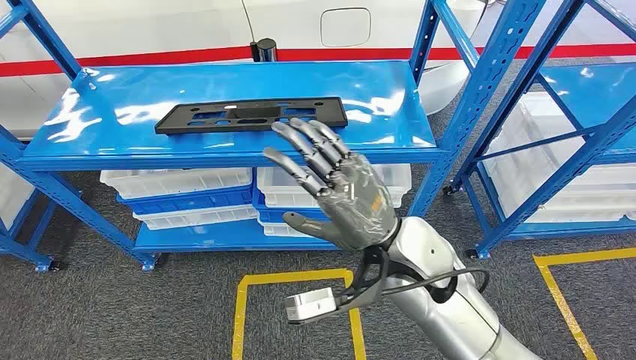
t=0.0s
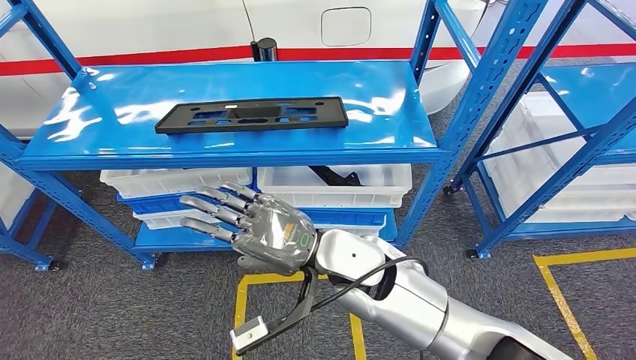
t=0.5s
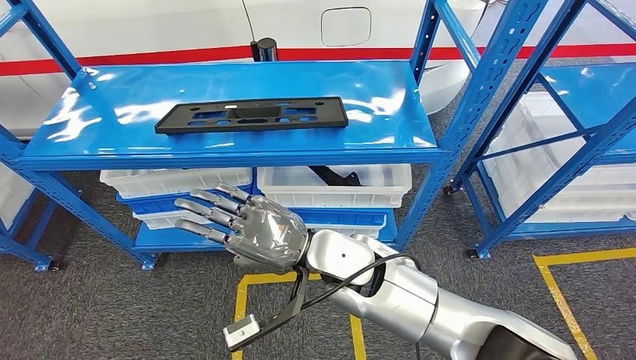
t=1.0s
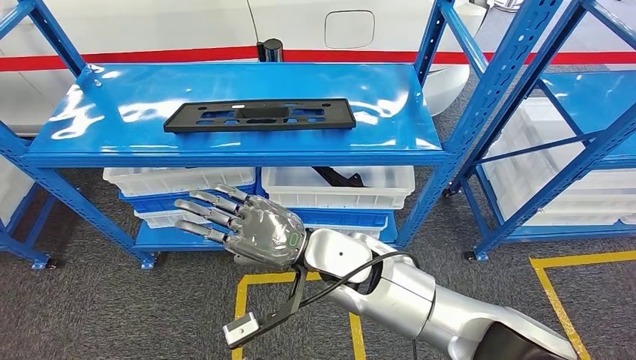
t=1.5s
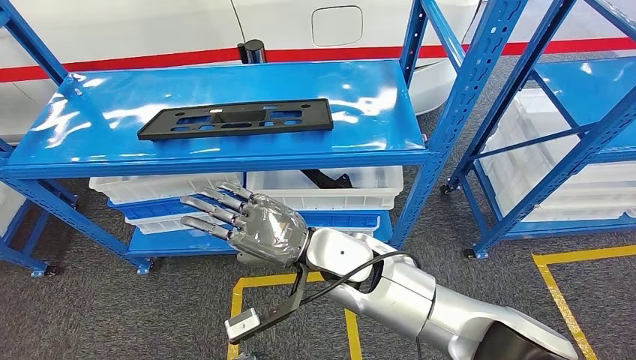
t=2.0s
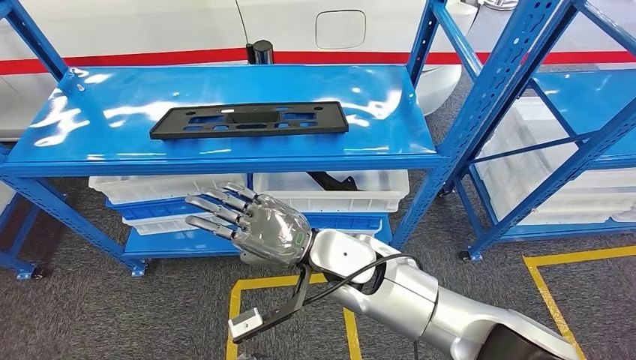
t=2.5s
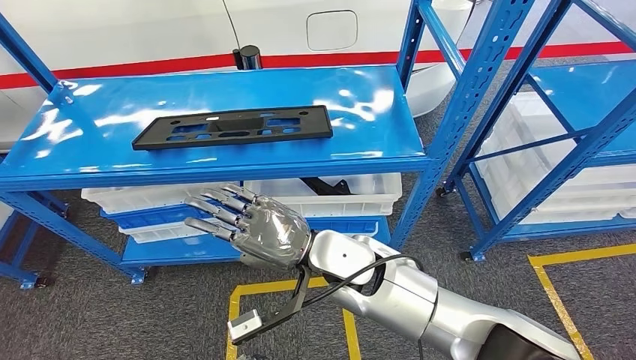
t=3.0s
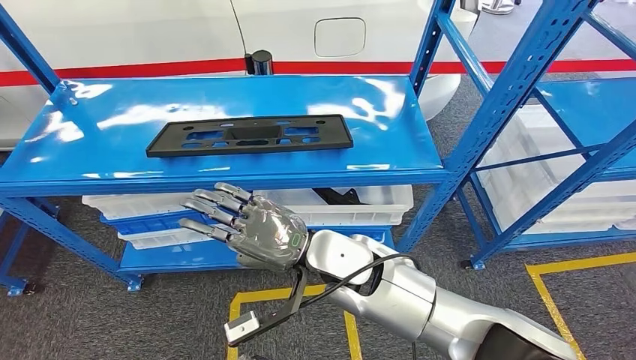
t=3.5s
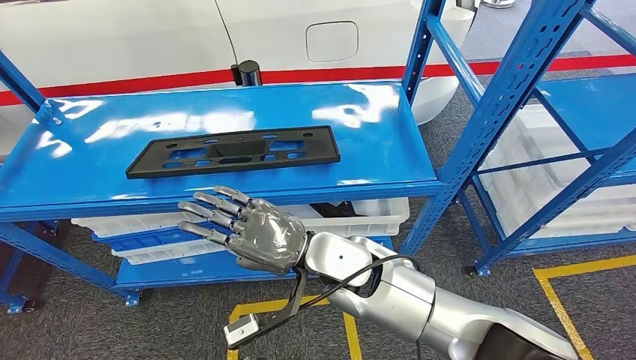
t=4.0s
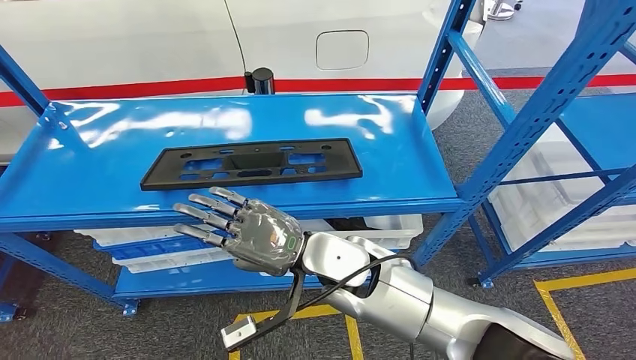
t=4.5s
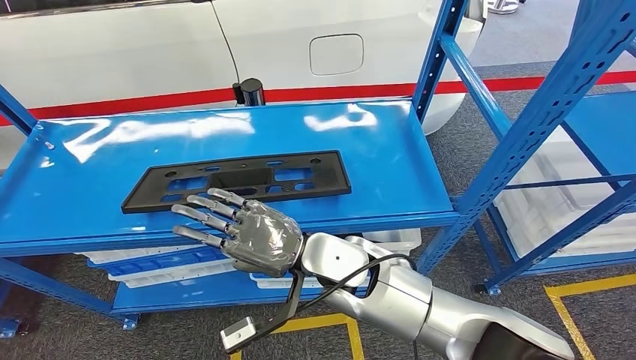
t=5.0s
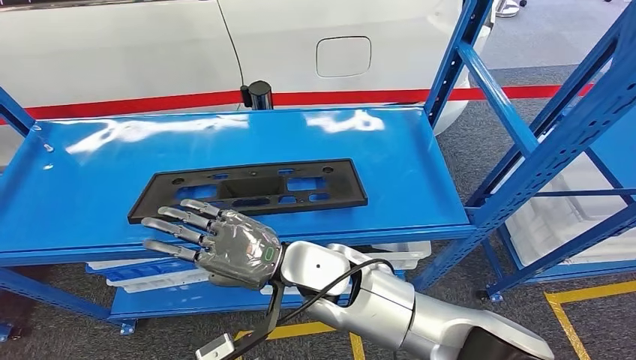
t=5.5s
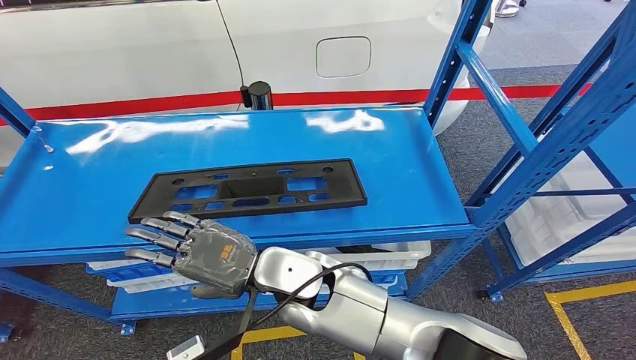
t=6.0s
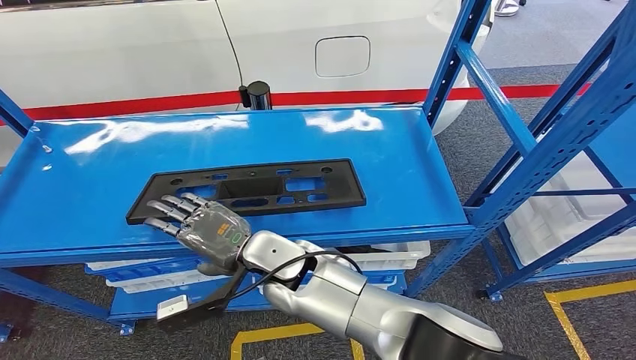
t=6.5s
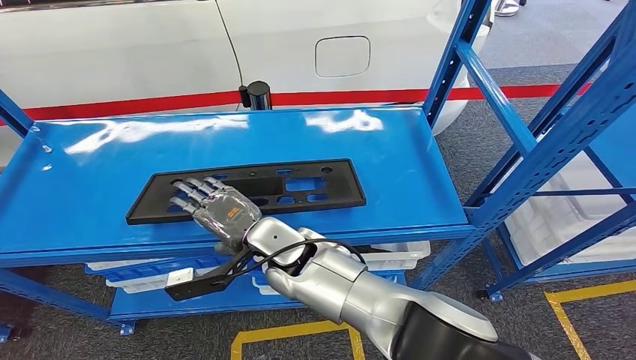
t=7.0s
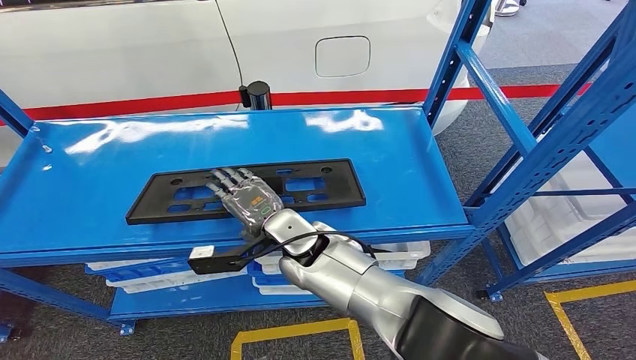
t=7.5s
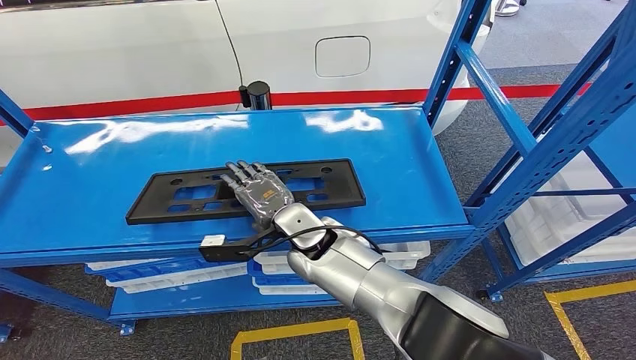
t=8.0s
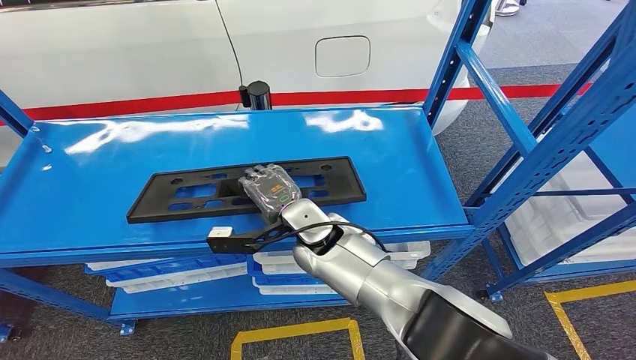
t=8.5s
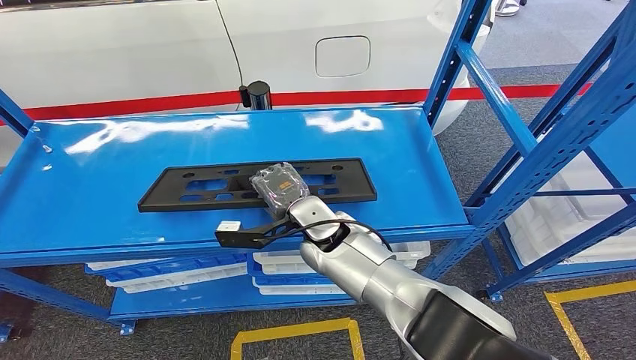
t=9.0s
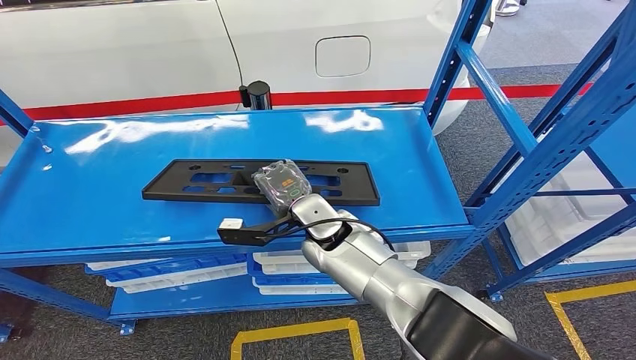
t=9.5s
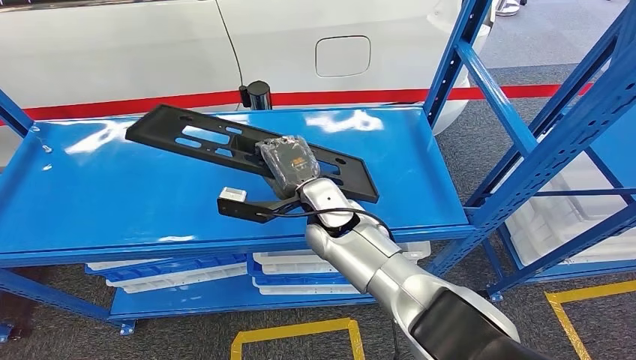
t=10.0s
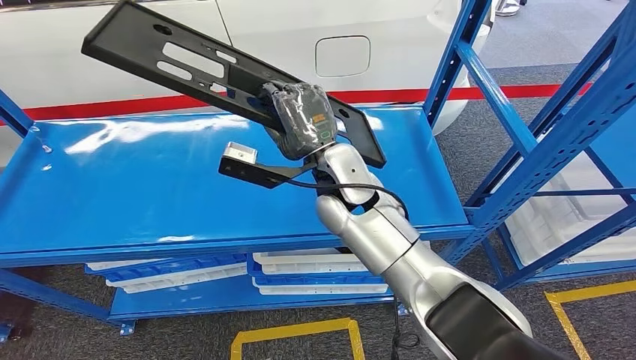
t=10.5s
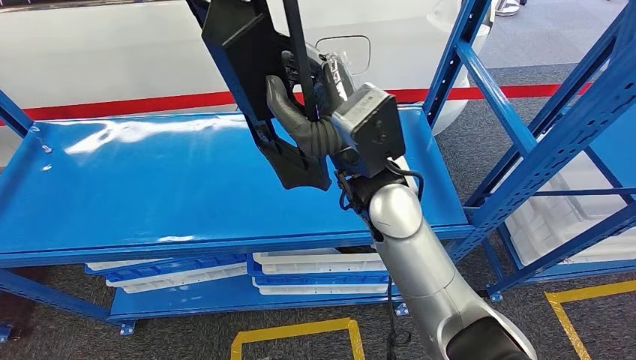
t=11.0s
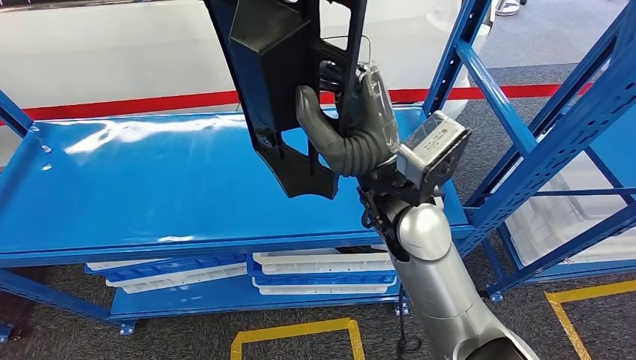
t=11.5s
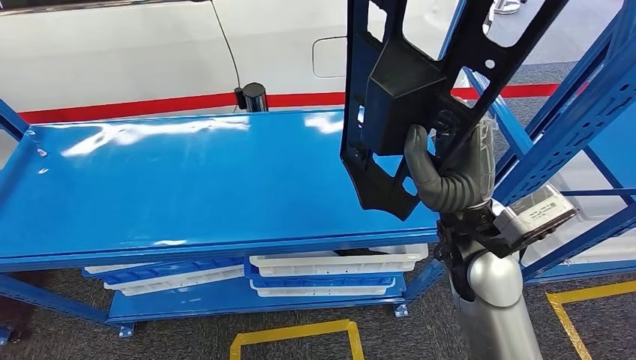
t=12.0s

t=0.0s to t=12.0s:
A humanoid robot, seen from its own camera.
t=6.0s to t=8.0s: The right hand travels forward and to the right by roughly 10 cm.
t=8.0s to t=10.0s: The hands stay close to where they were, moving slightly.

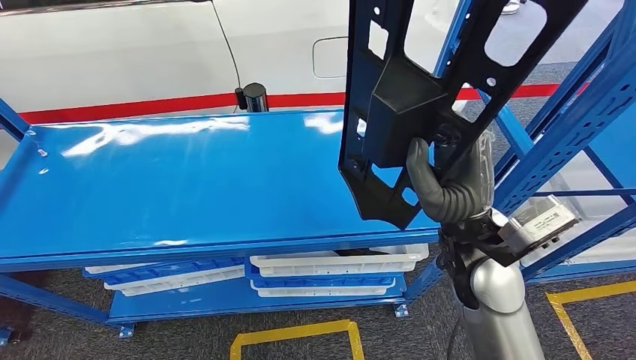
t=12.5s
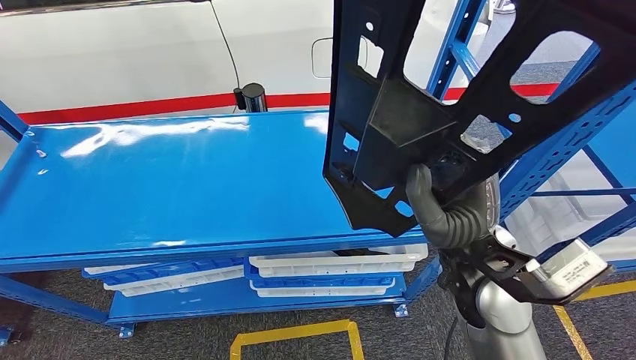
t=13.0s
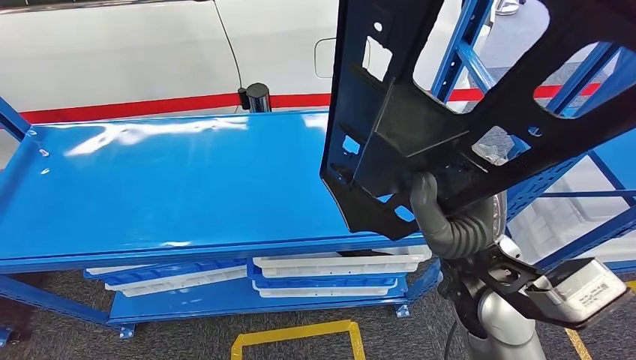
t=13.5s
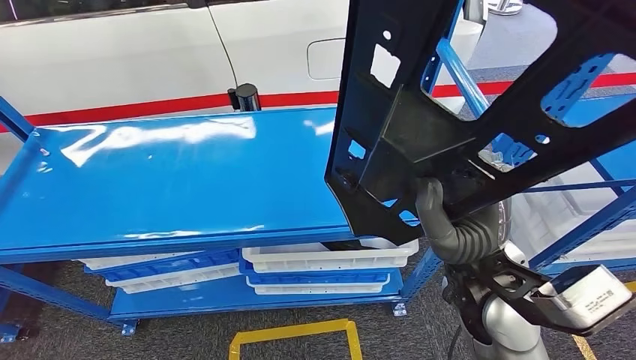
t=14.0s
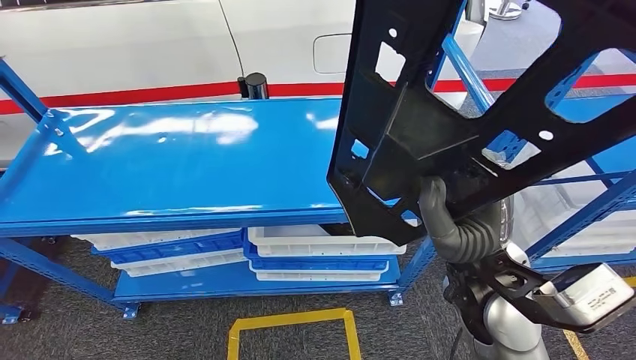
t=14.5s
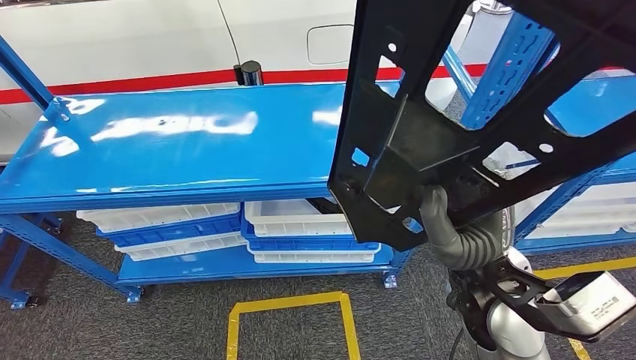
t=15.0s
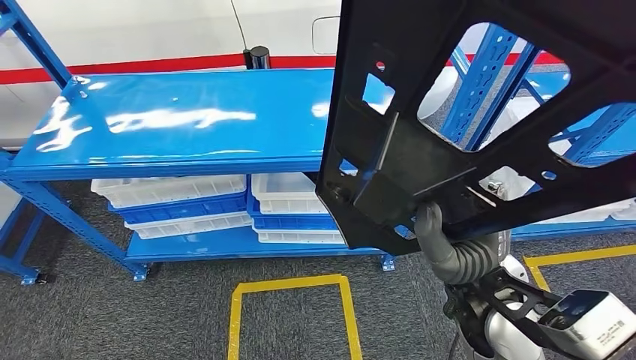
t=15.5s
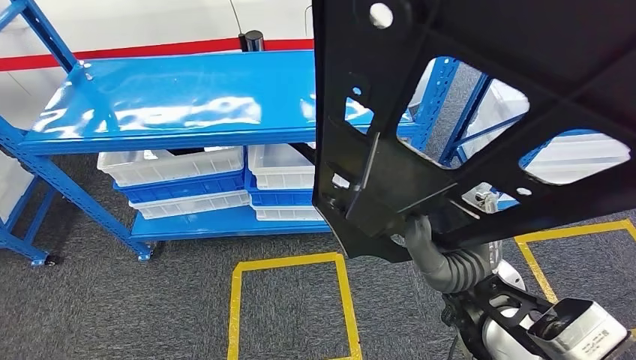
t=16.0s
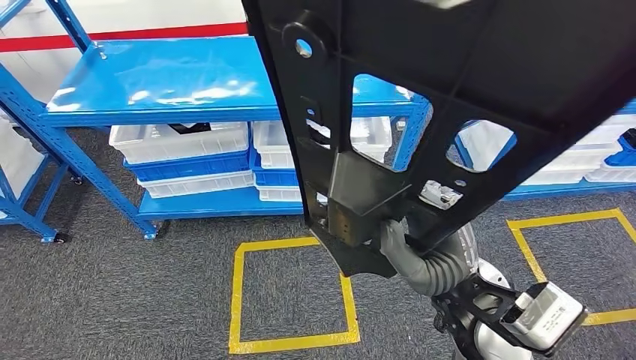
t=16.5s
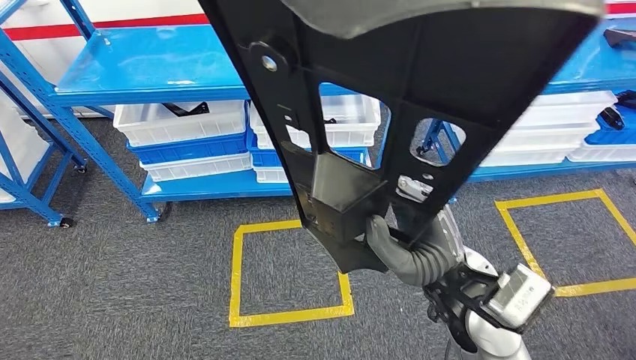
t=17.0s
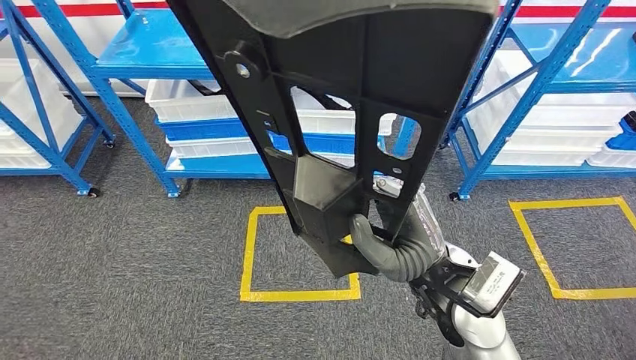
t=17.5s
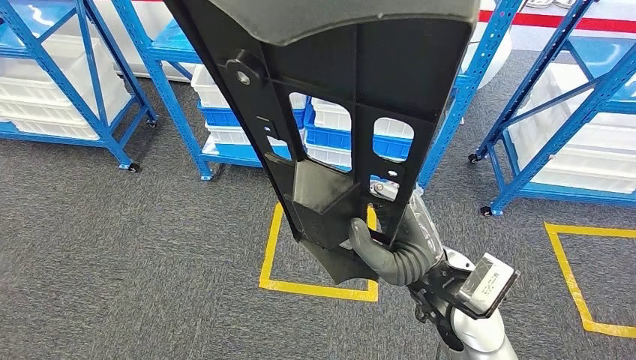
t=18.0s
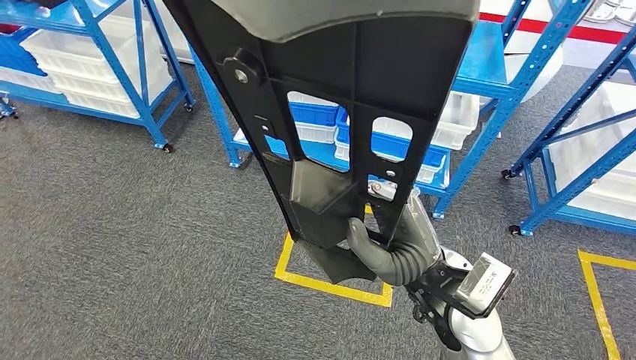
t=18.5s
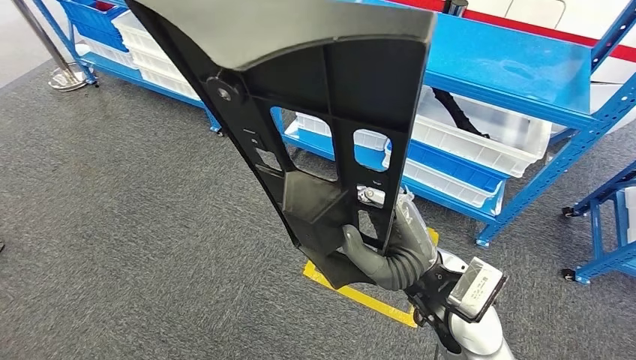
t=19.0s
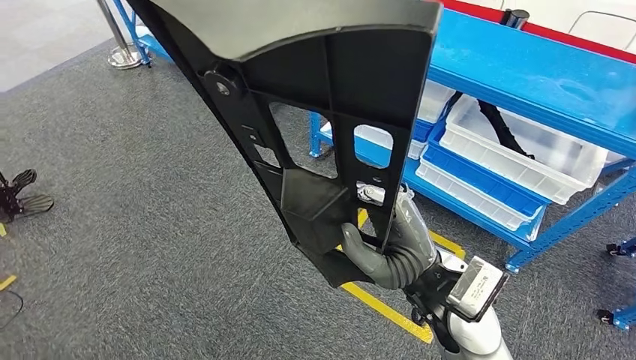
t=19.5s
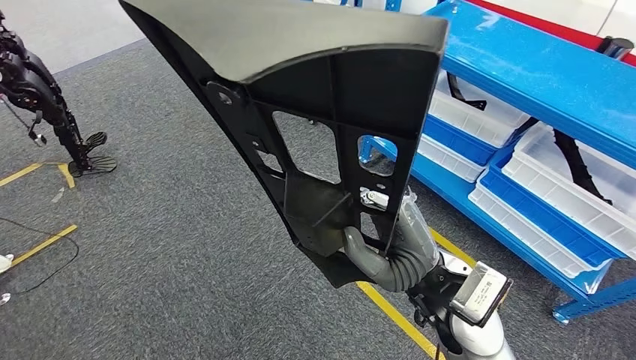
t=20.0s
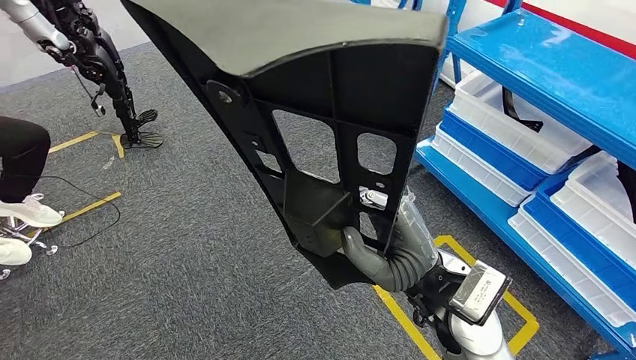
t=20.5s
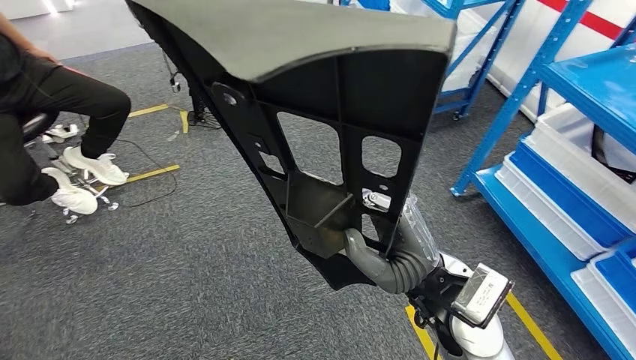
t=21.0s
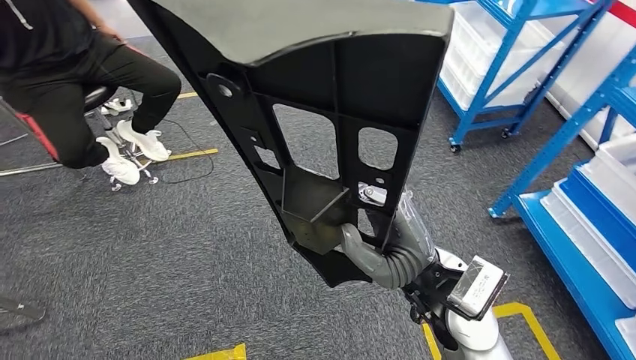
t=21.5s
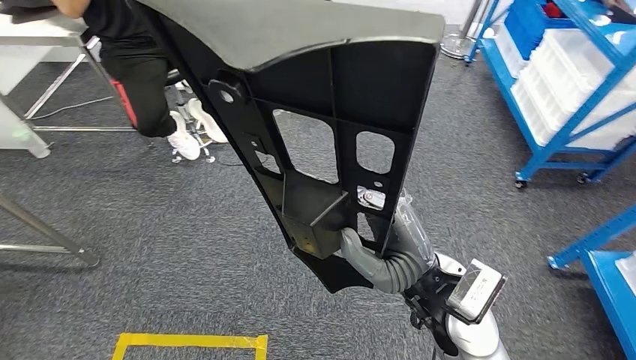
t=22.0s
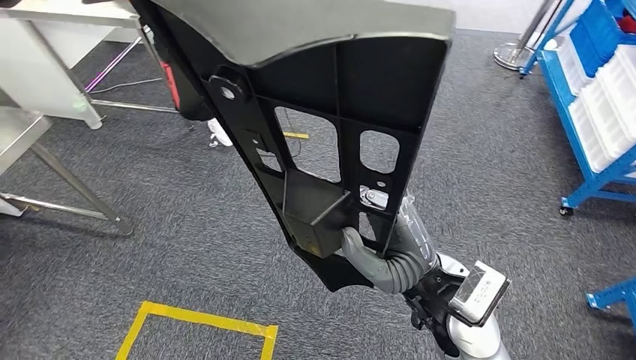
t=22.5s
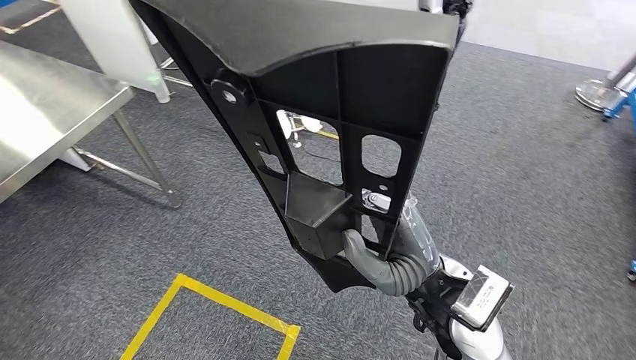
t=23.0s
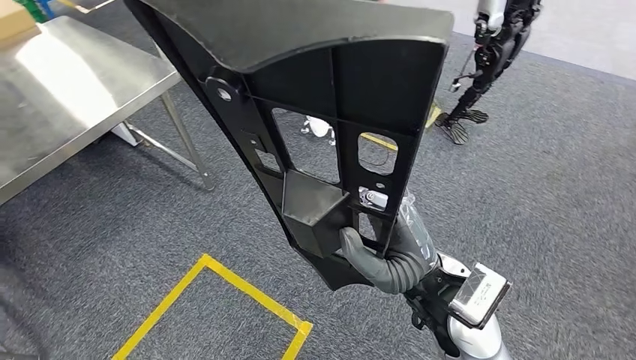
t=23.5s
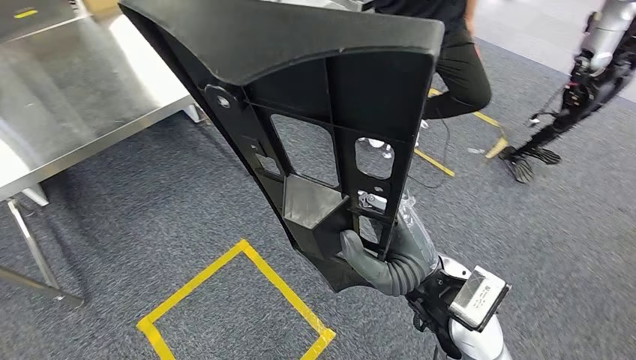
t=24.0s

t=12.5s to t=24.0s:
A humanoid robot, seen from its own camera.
Step, t=12.5s to t=14.5s: Pick up the large material from the shelf.
